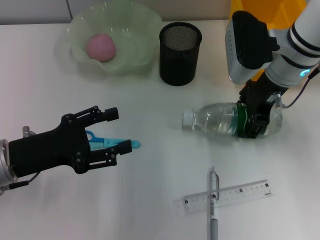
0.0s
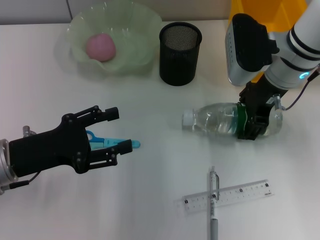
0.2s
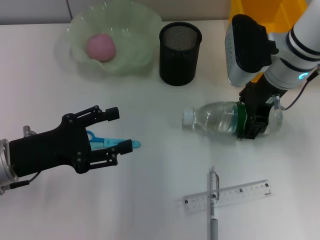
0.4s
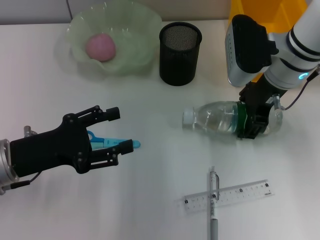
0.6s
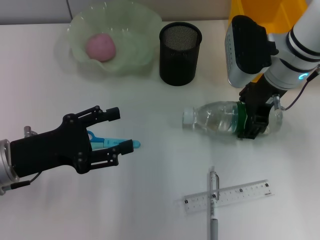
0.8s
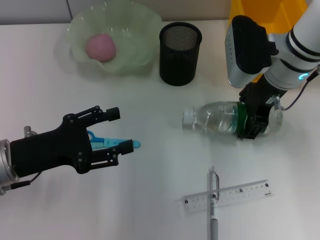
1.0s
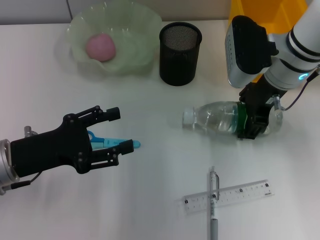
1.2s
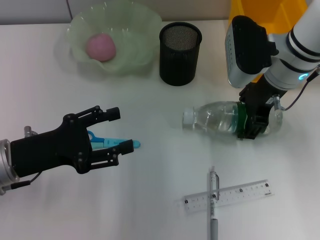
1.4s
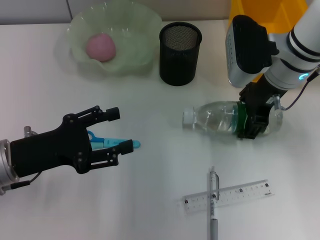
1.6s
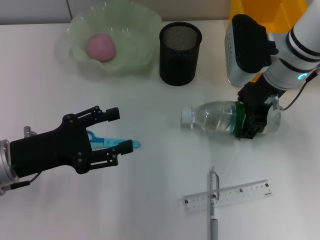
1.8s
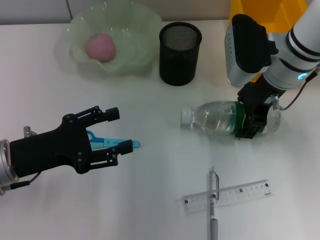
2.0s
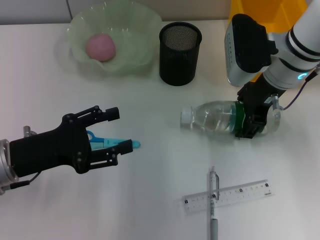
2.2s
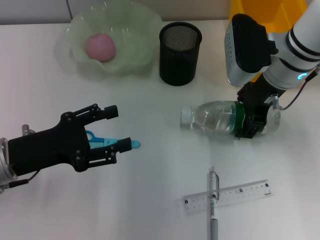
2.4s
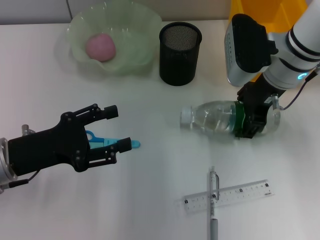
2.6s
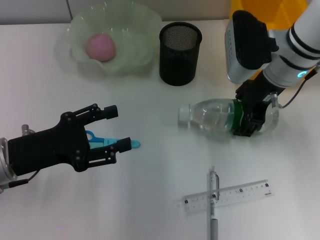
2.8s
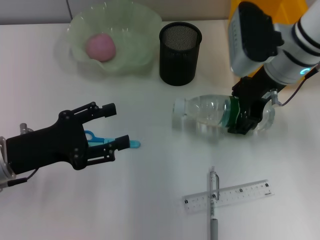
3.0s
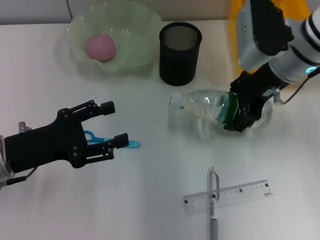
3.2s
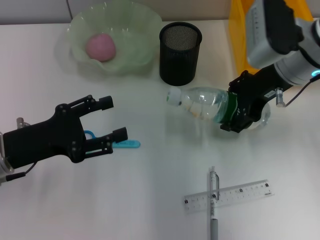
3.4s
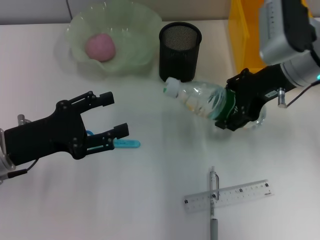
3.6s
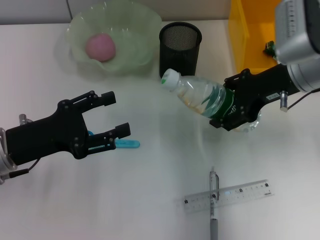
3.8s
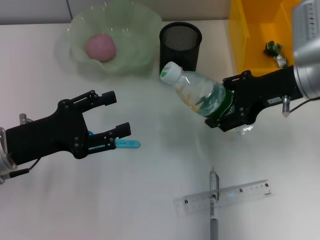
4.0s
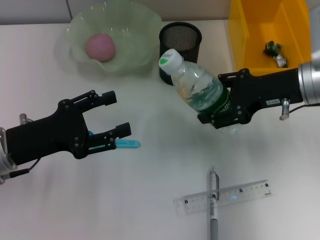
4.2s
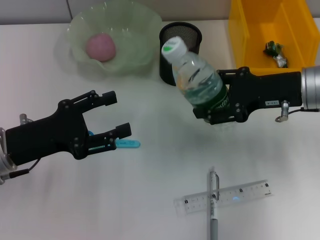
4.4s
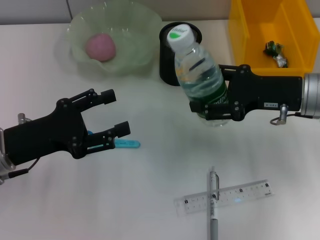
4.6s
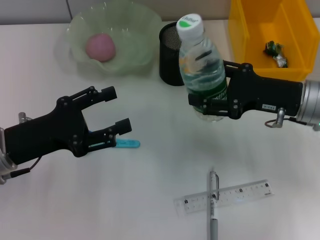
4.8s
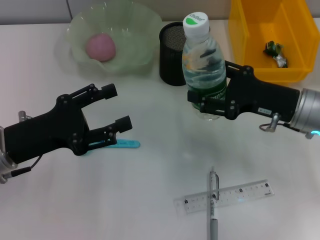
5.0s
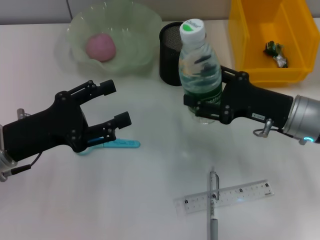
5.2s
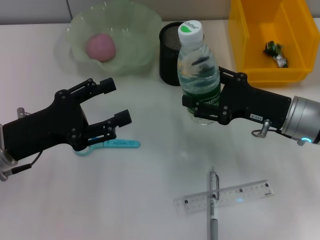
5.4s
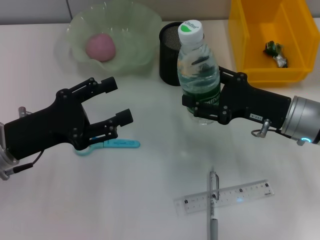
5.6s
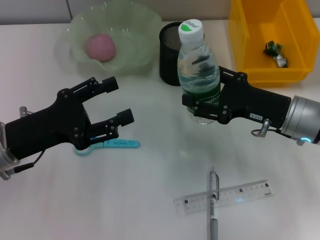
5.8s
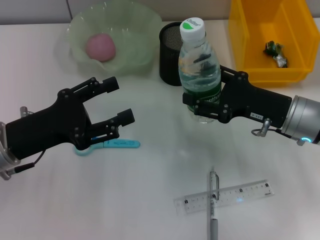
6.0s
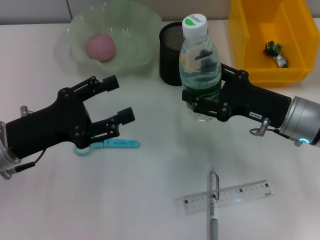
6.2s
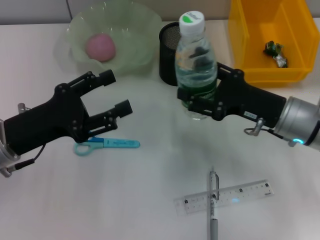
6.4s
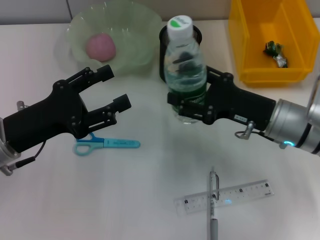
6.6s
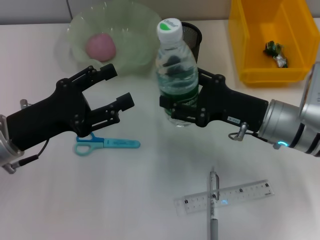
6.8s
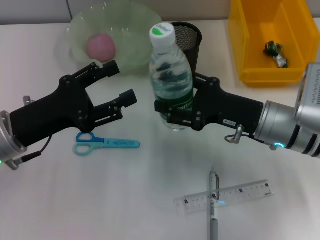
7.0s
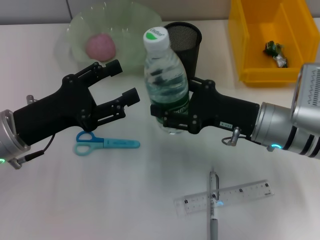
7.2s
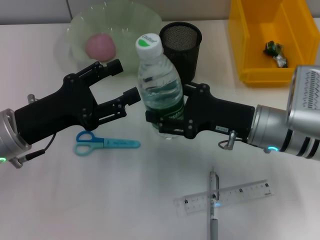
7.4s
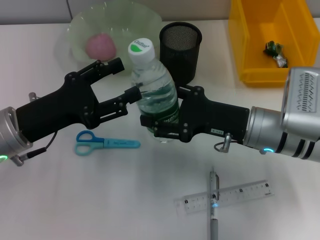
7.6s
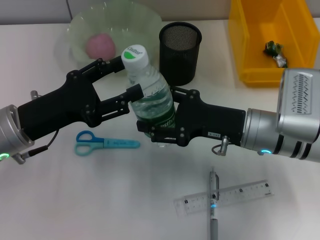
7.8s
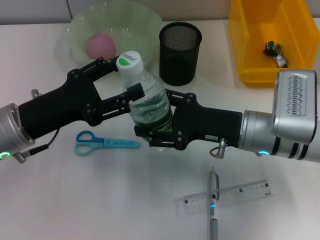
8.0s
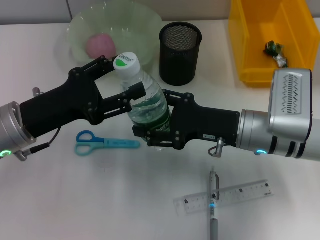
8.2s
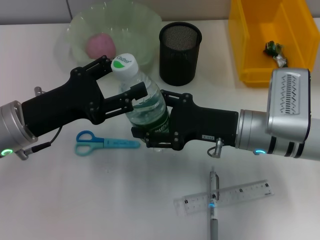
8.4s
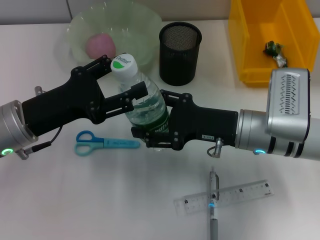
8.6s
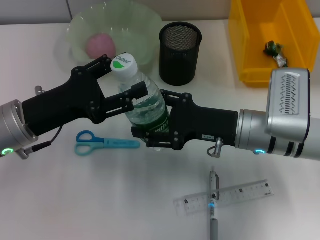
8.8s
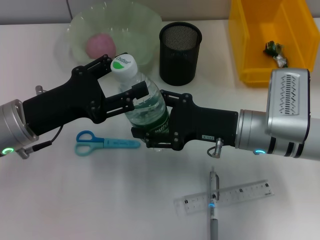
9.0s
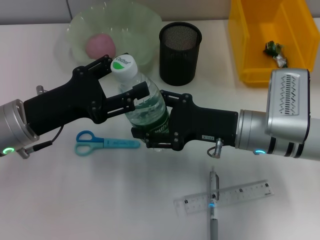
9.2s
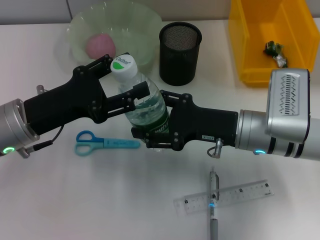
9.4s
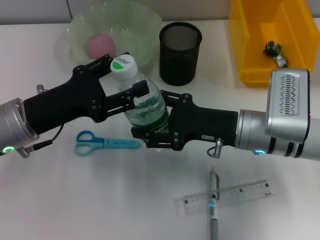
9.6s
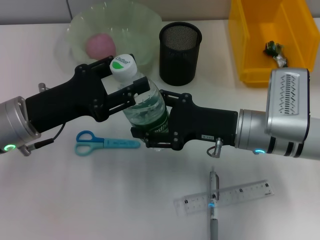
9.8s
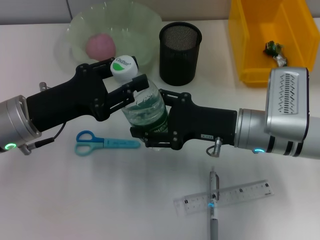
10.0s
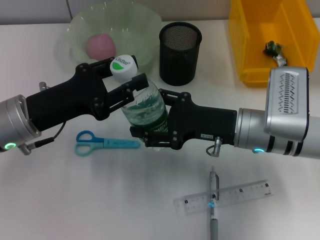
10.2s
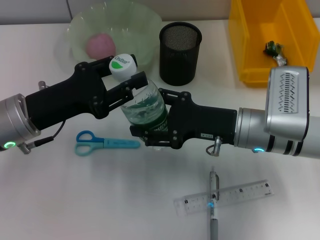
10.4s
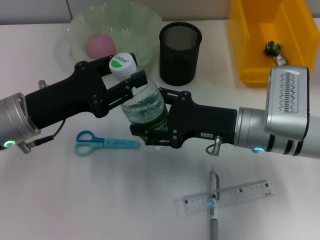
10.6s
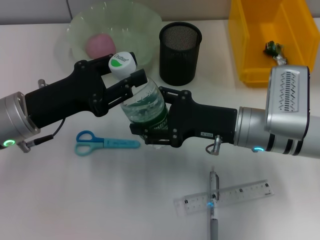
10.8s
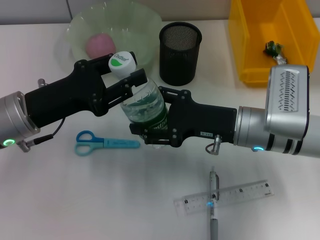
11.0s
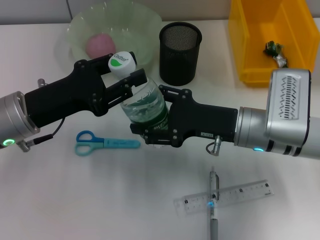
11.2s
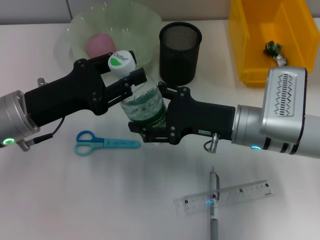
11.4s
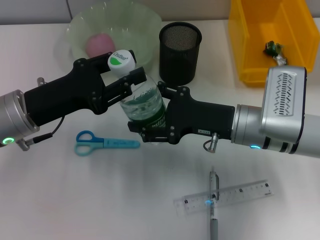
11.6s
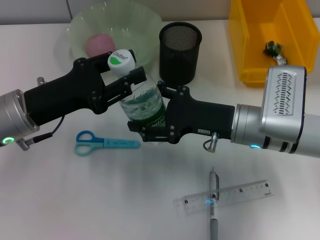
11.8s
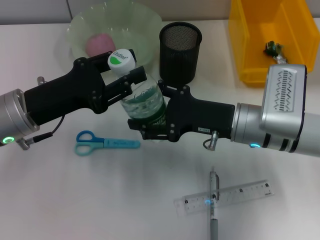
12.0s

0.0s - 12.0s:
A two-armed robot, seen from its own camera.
0.0s - 1.6s: Neither gripper changes place.
1.6s - 3.0s: The grippers stay close to where they were, moving slightly.
3.0s - 4.4s: The right gripper is displaced to the right and backward by some 10 cm.
4.4s - 6.0s: The right gripper is displaced downward by approximately 5 cm.
6.0s - 7.6s: The right gripper moves to the left, approximately 5 cm.
7.6s - 9.0s: There are only small adjustments of the grippers.
9.0s - 10.4s: The left gripper closes its fingers.
10.4s - 12.0s: Neither gripper changes place.

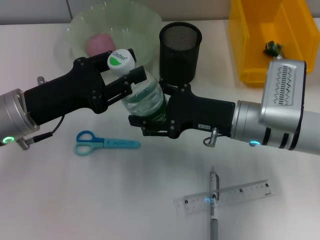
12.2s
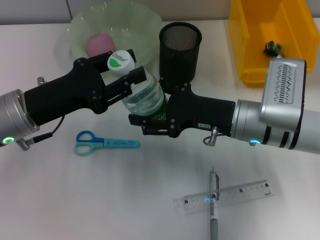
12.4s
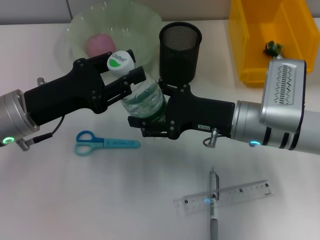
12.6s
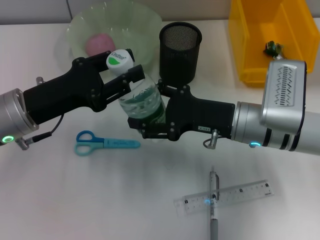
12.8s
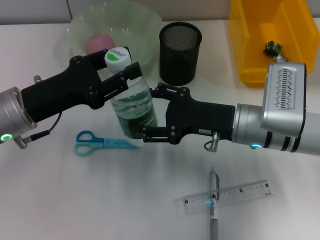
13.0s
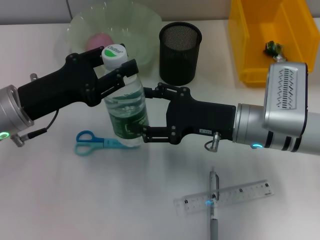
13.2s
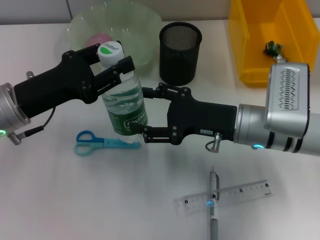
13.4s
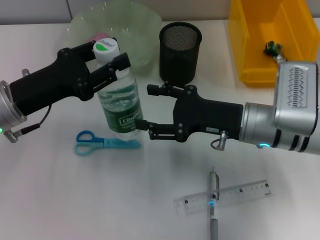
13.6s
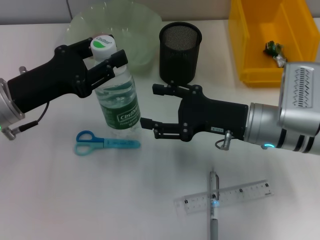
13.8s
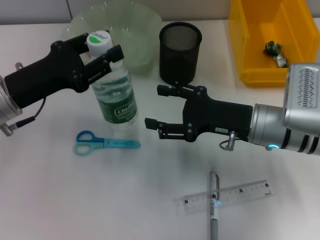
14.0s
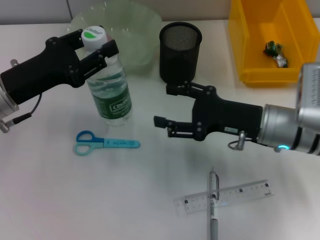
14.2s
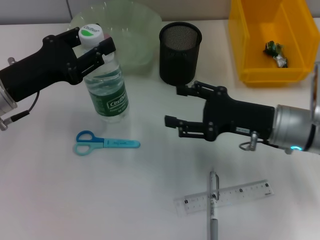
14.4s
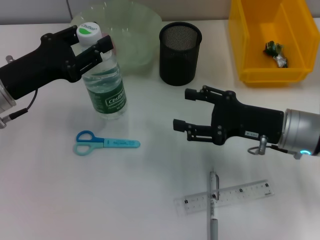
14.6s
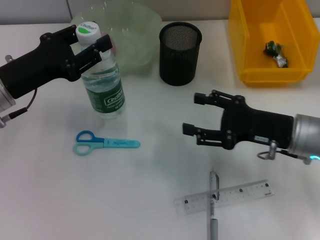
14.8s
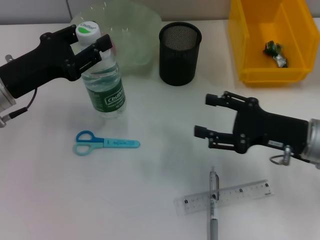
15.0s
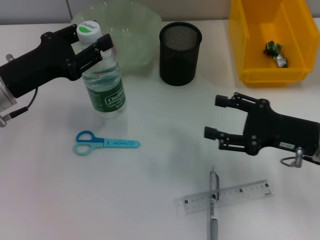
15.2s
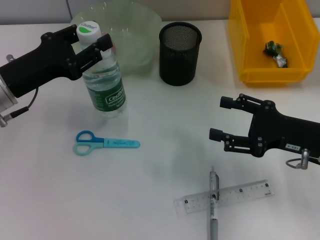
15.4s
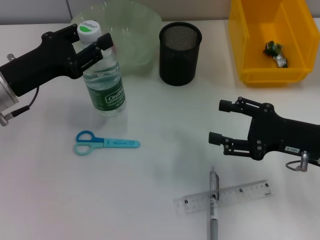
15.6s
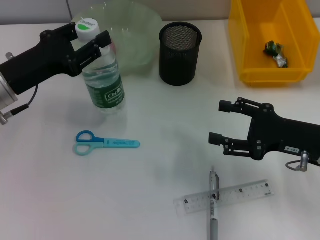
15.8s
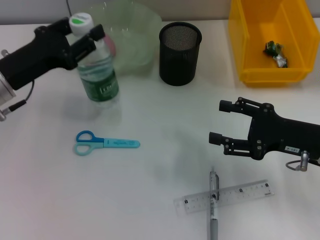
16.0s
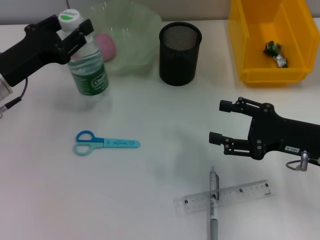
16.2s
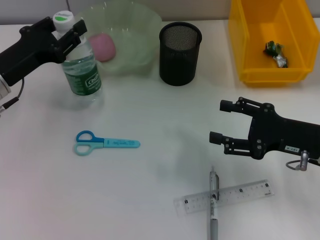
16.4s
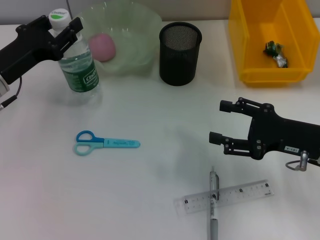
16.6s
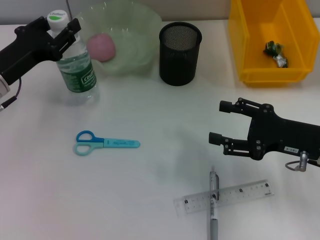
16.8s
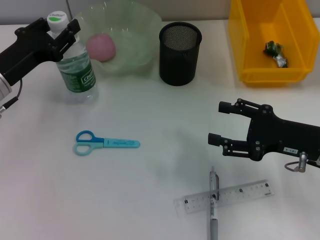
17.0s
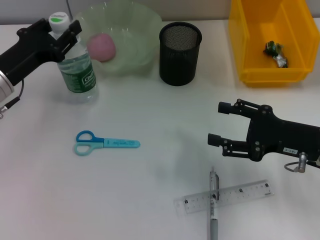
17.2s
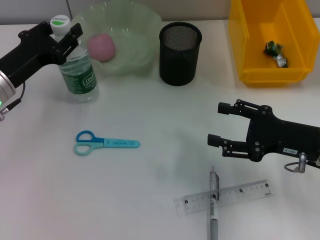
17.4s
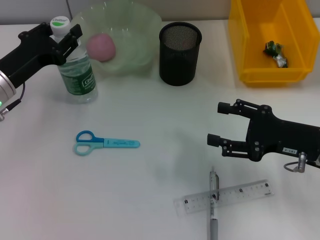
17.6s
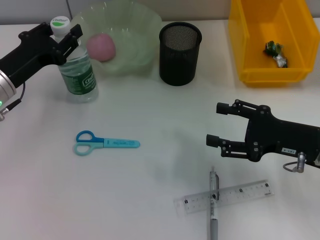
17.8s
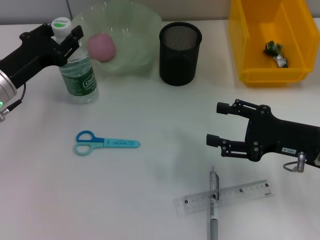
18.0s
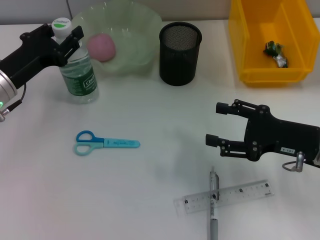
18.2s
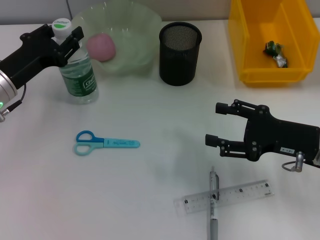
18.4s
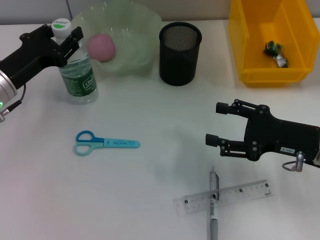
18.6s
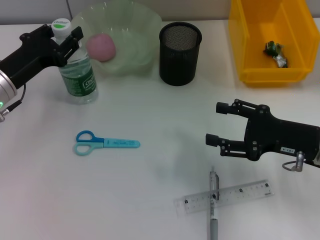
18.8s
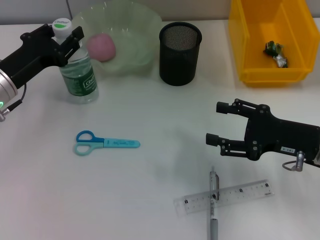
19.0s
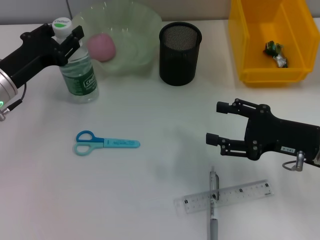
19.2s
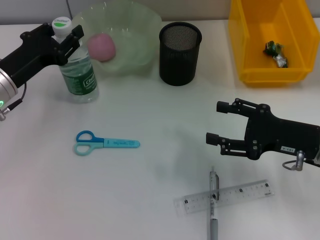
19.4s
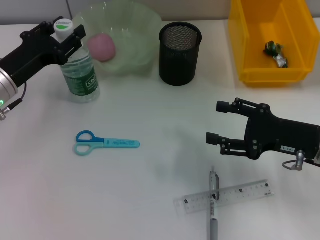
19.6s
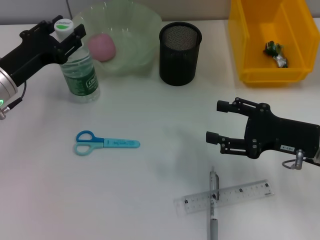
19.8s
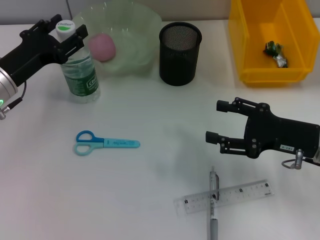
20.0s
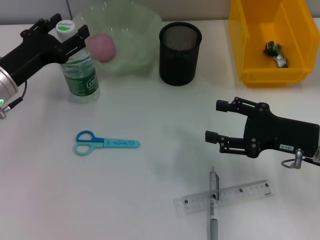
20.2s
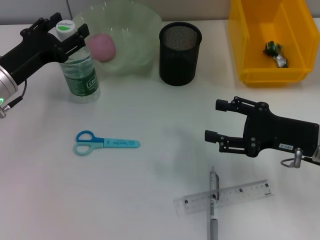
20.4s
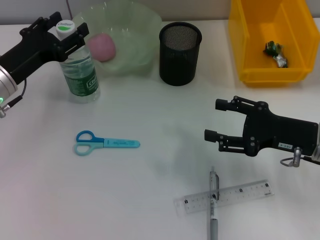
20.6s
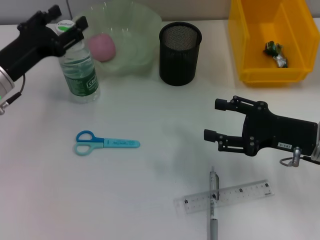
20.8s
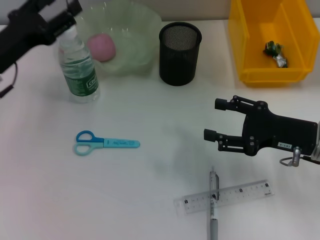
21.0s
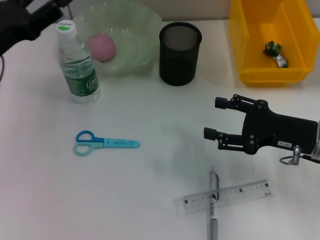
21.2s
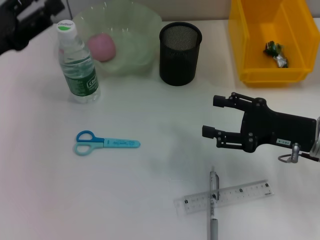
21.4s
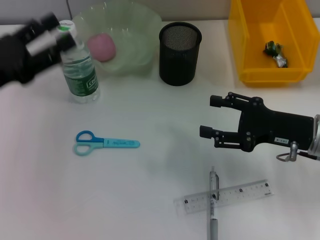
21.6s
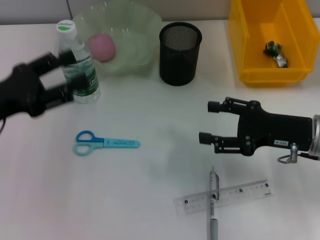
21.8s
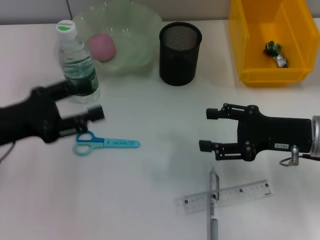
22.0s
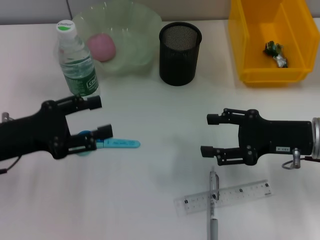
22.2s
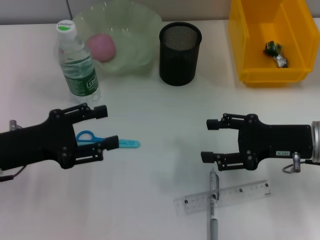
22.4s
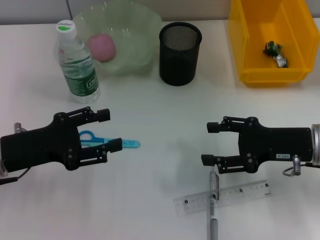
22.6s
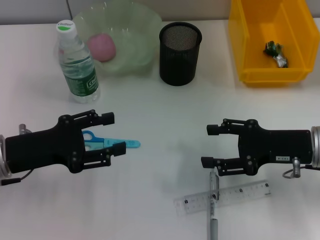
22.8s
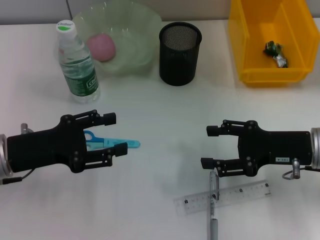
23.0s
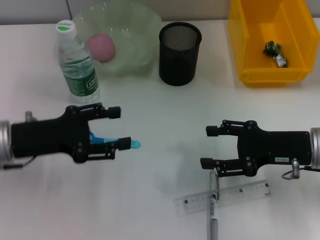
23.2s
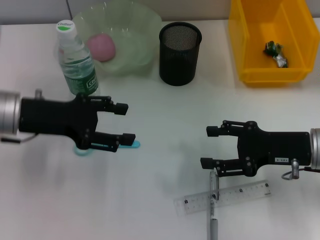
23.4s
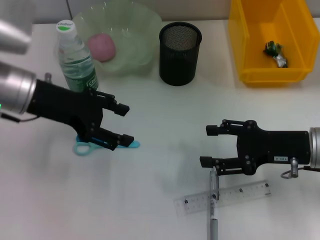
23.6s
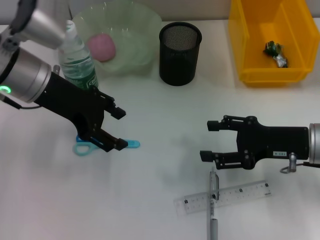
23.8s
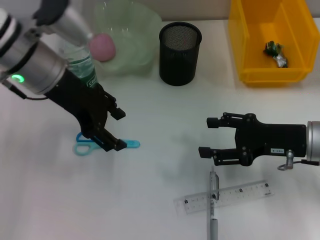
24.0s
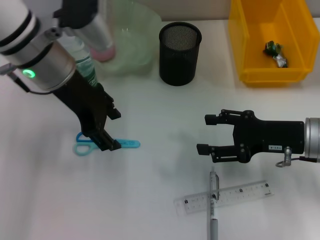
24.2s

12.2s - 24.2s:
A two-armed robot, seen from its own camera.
Step, 13.4s - 20.2s: Place the water bottle on the table with the left hand.
12.2s - 13.8s: The grippers move only a little.
13.8s - 15.2s: The right gripper travels to the right by about 10 cm.
15.2s - 16.6s: The grippers move only a little.
16.6s - 18.2s: There are only small adjustments of the grippers.
18.2s - 19.8s: Neither gripper changes place.
19.8s - 21.2s: The left gripper shifts by roughly 5 cm.
21.2s - 22.6s: The left gripper moves backward and downward, some 10 cm.
22.6s - 24.2s: The left gripper goes approximately 20 cm upward, to the right and forward.
